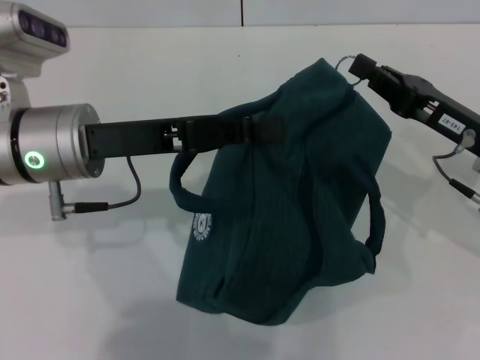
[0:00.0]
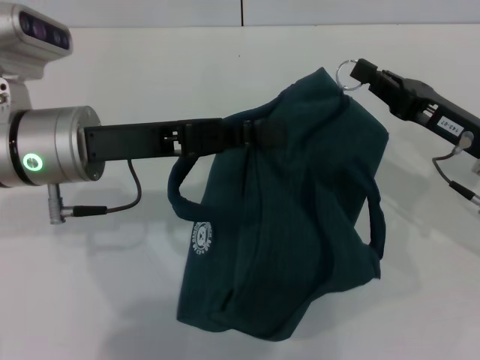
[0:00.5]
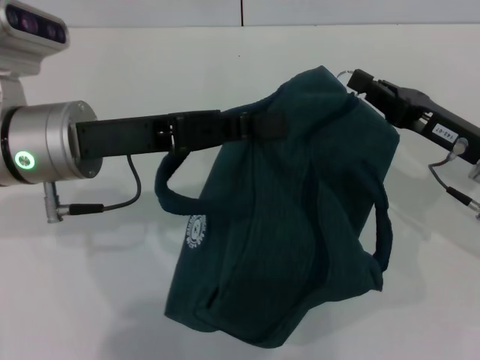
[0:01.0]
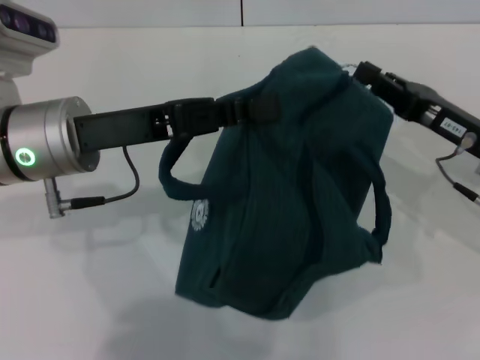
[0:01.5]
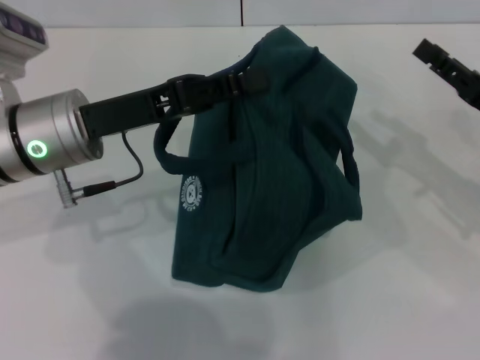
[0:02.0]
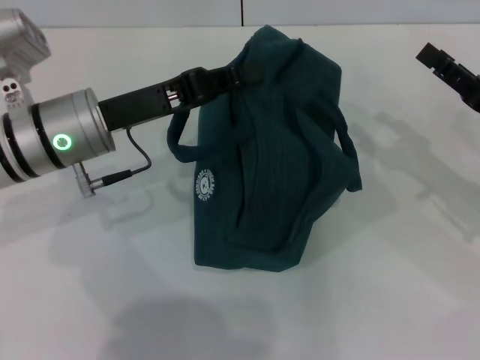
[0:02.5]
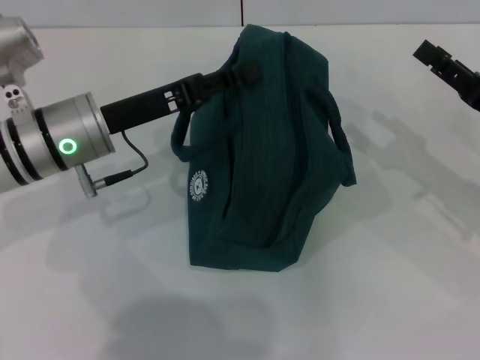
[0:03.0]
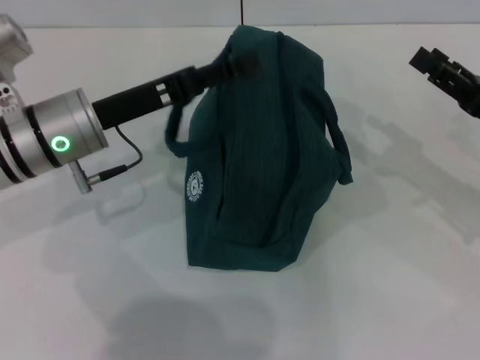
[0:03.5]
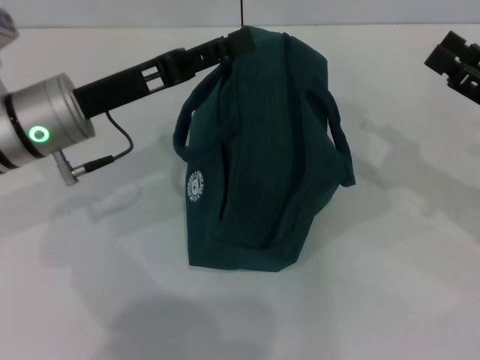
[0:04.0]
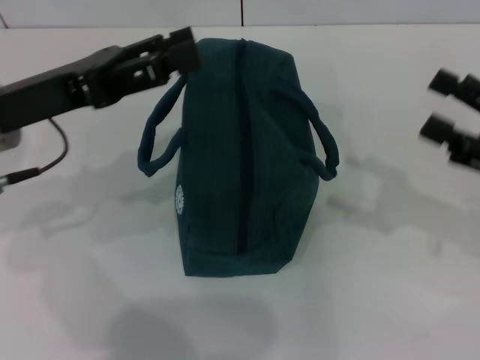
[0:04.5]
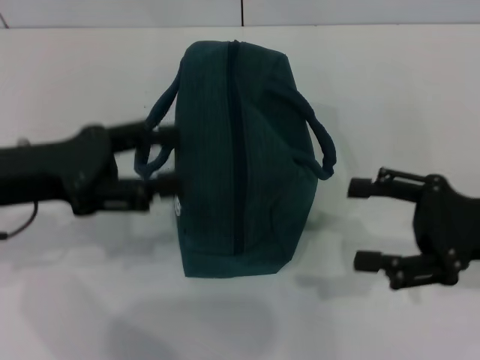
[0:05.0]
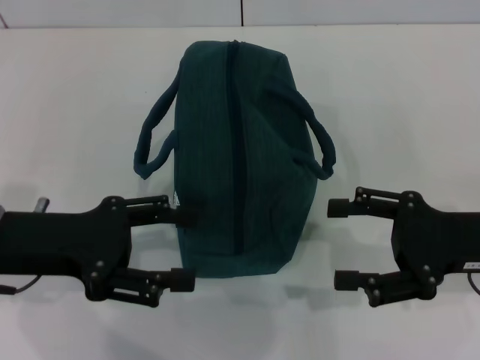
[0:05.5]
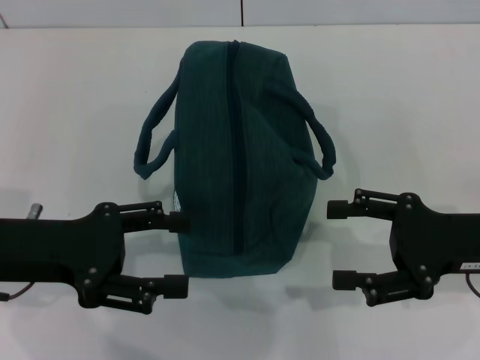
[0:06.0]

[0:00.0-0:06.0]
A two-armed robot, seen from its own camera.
Step, 0:00.0 to 0:02.0: Zip up the lunch bag with your right hand.
Step, 0:02.5 to 0:04.0: Hold the lunch bag with your left hand.
0:00.0 to 0:02.0: The right gripper travels to the right by roughly 5 cm, and opens.
0:02.0 to 0:04.0: The left gripper opens. The right gripper opens.
0:04.0 to 0:06.0: The right gripper shifts about 5 cm to the left, while the left gripper moves backward and to the left, roughly 10 cm.
